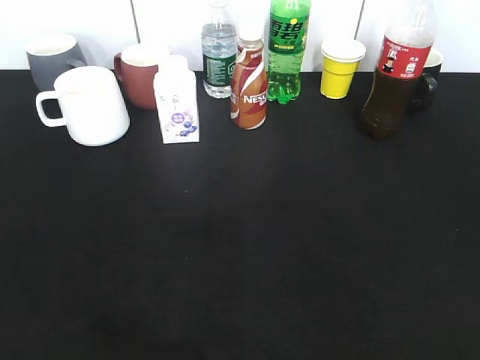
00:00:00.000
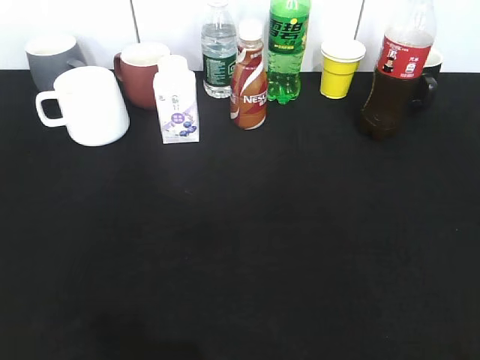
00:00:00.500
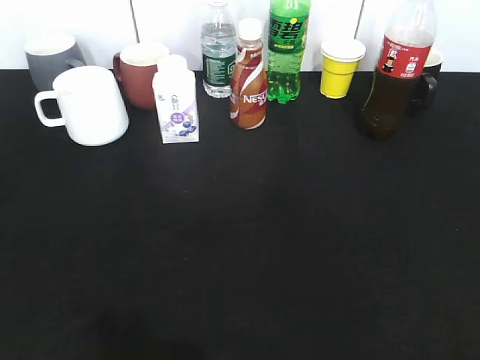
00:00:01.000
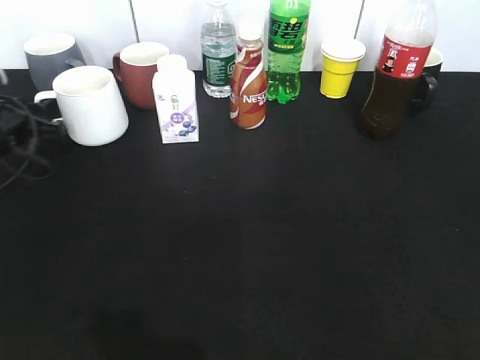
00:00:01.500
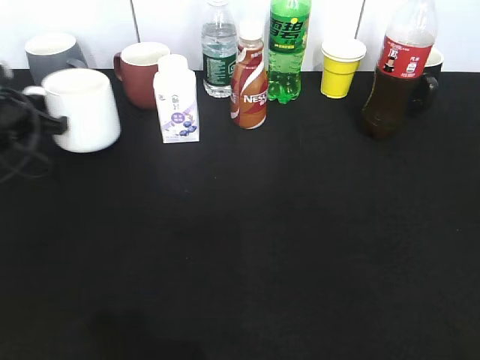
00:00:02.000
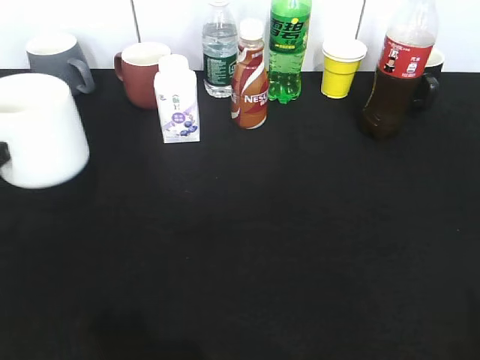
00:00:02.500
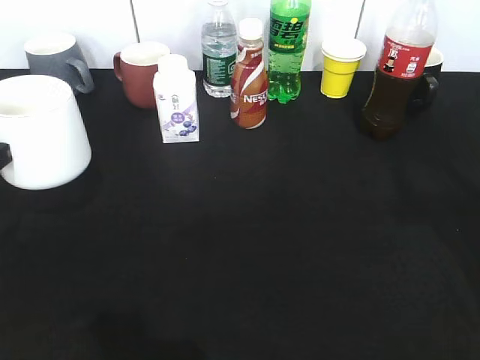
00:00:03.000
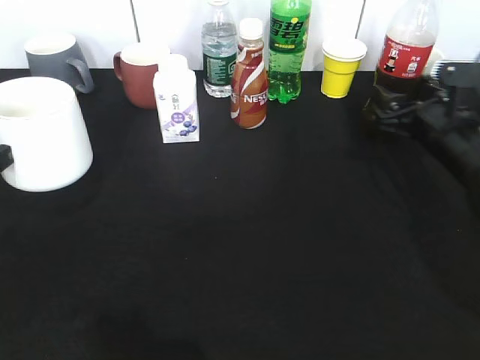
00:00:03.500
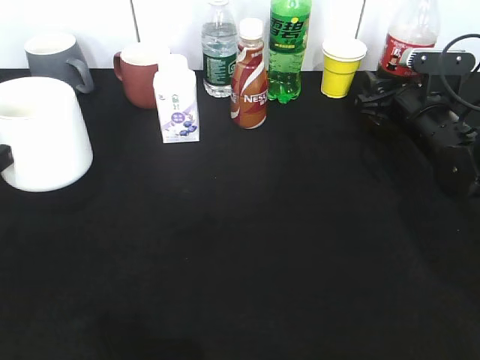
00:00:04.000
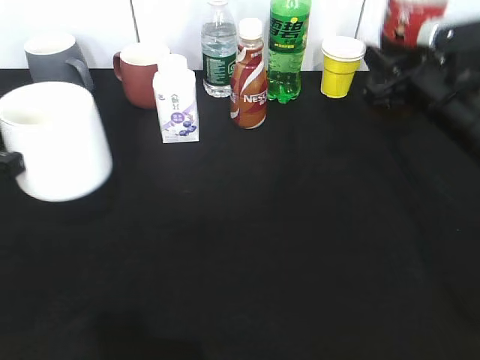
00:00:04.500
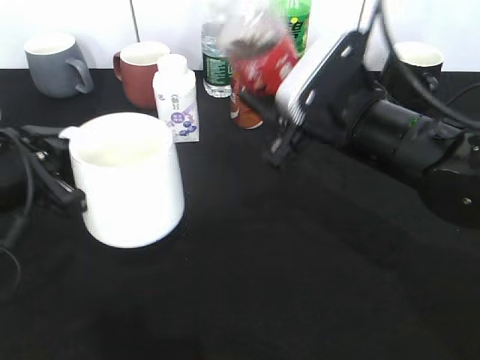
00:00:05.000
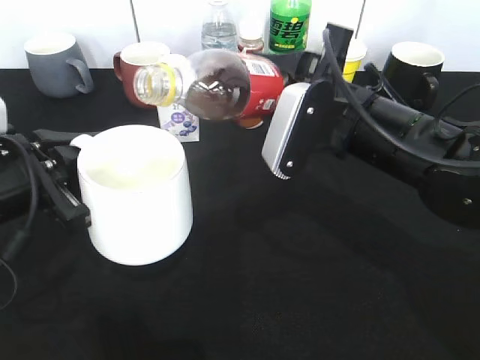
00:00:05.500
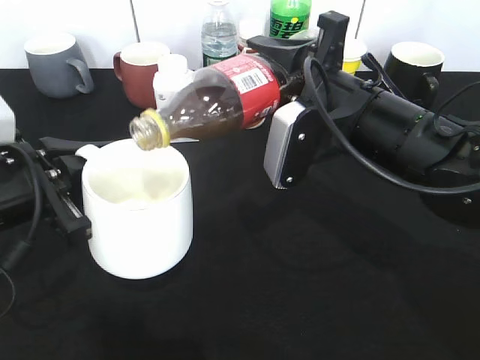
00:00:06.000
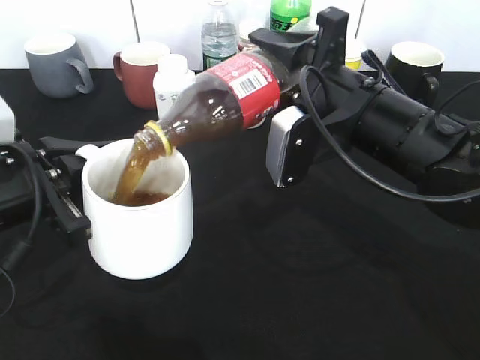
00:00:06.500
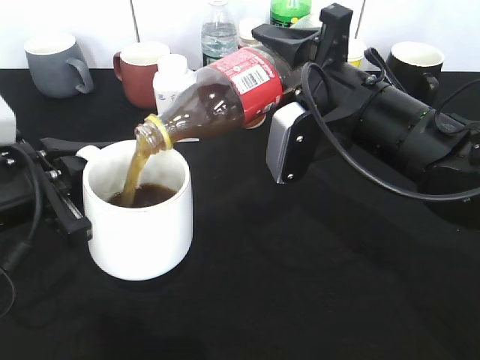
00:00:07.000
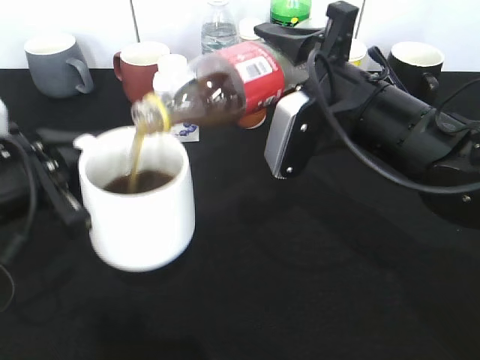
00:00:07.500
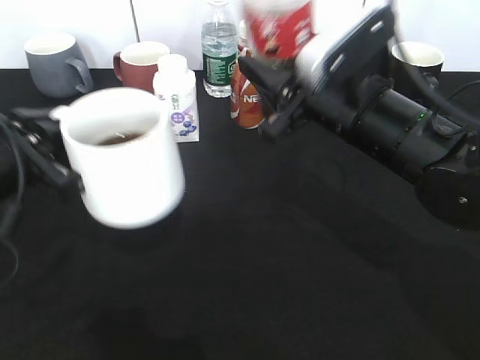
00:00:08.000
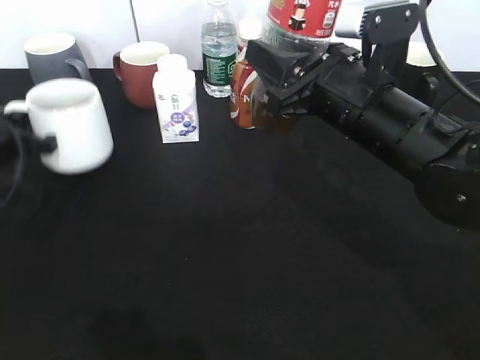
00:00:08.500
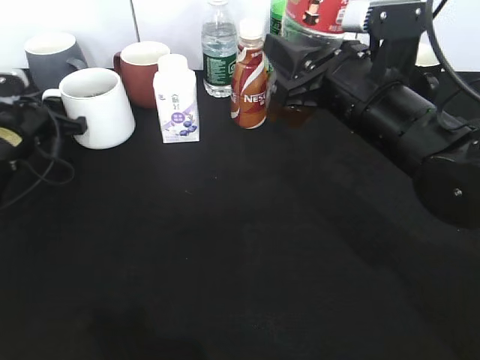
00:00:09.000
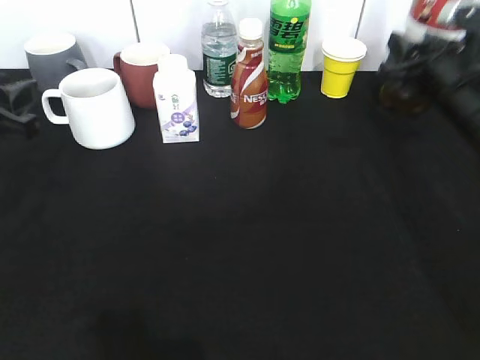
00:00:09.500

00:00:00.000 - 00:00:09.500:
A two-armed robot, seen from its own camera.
Step, 00:00:00.000 - 00:00:01.500: Grasp the white cup with left gripper.
Step, 00:00:02.000 - 00:00:02.500: Lift the white cup with left gripper.
Step, 00:00:03.000 - 00:00:04.000: Grasp the bottle with cola with right gripper.
Step, 00:00:04.500 - 00:00:07.500: Pour the cola from bottle to cup with right gripper.
Step, 00:00:08.000 - 00:00:09.000: Place the white cup on the table with left gripper.
00:00:00.000 - 00:00:02.000: The left gripper goes approximately 35 cm forward, and closes.
00:00:02.000 - 00:00:04.000: The right gripper goes about 40 cm forward and downward, while the left gripper heads backward and upward, covering about 15 cm.
00:00:04.000 - 00:00:05.500: The left gripper goes approximately 10 cm to the right; the right gripper goes about 20 cm to the left, backward and upward.
00:00:07.500 - 00:00:09.500: The right gripper travels to the right and forward by some 15 cm. Meanwhile the left gripper is displaced to the left by some 5 cm, reaches roughly 15 cm forward, then returns, and opens.

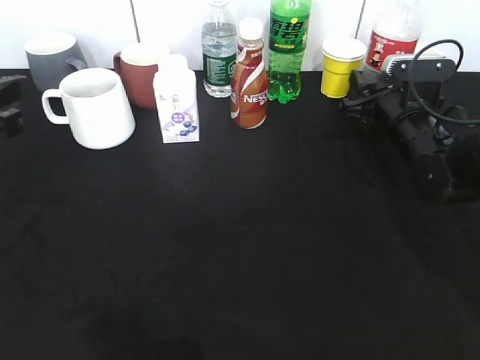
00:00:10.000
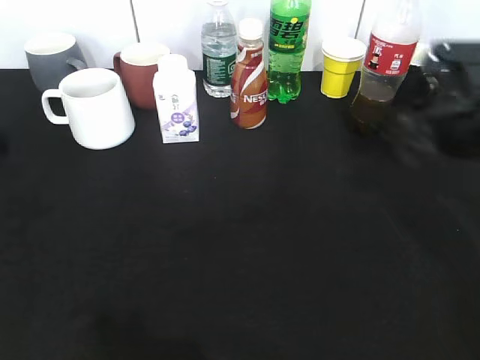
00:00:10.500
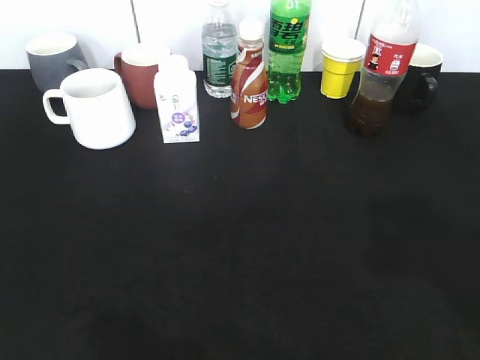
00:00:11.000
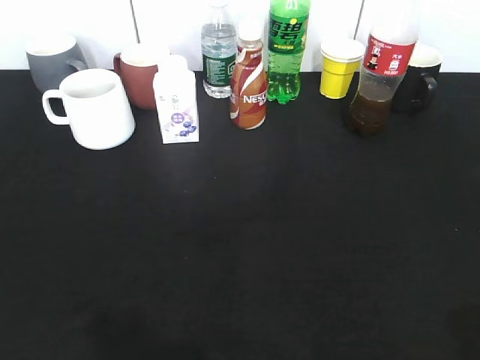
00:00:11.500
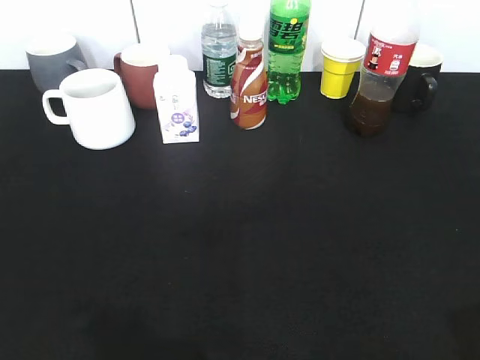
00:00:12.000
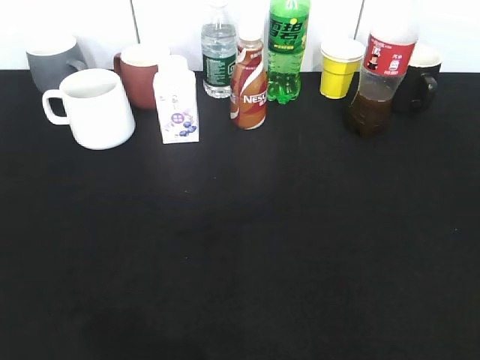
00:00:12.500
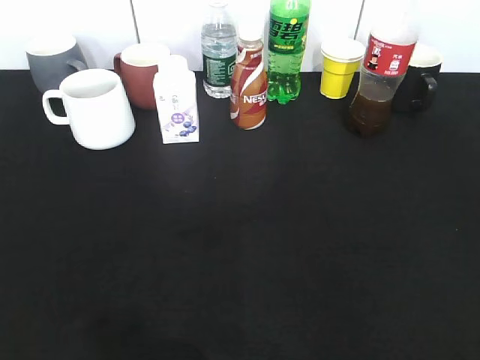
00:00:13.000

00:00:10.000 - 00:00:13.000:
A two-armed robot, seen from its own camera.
Step, 00:00:10.000 - 00:00:10.500: Place the cola bottle on the table with right gripper.
00:00:10.000 - 00:00:11.500: The right gripper goes some 40 cm backward and upward. The left gripper moves backward, roughly 25 cm, and opens up.

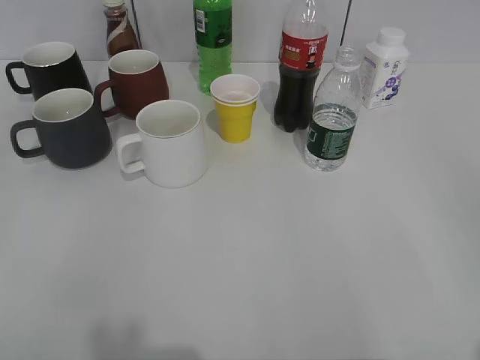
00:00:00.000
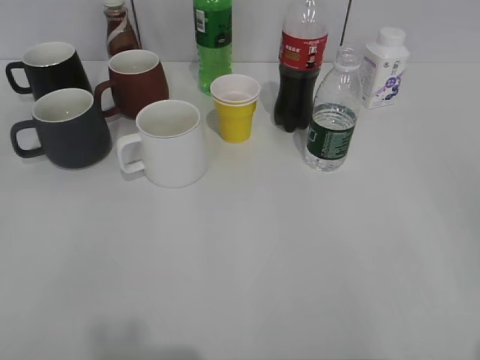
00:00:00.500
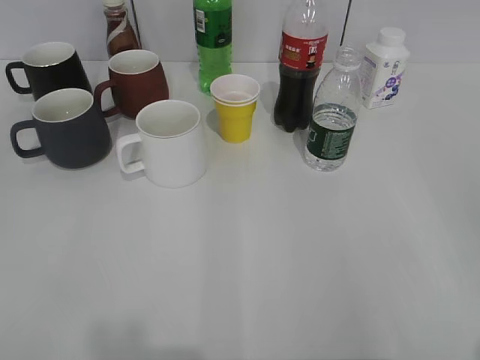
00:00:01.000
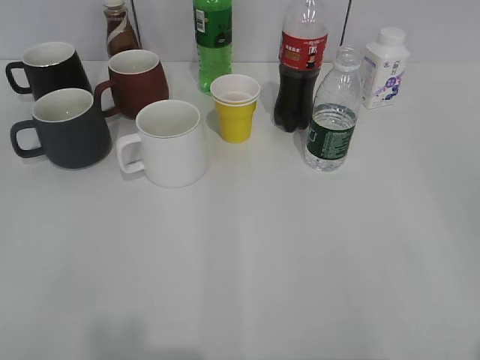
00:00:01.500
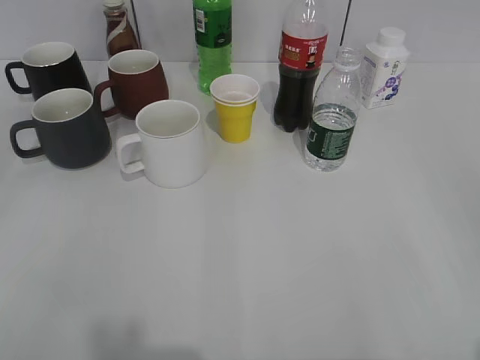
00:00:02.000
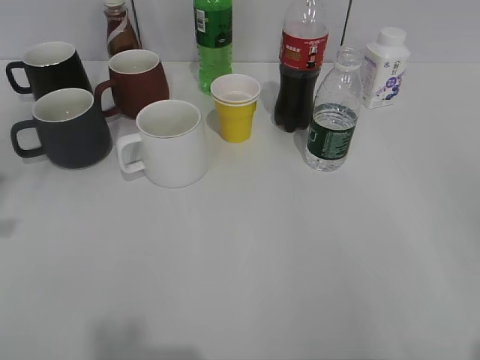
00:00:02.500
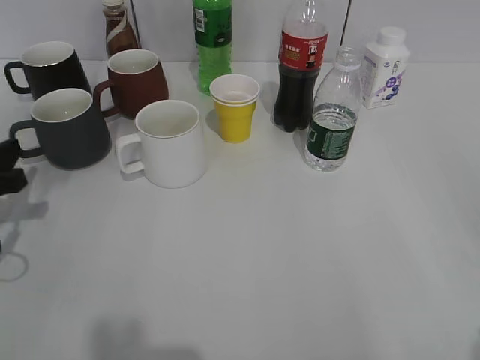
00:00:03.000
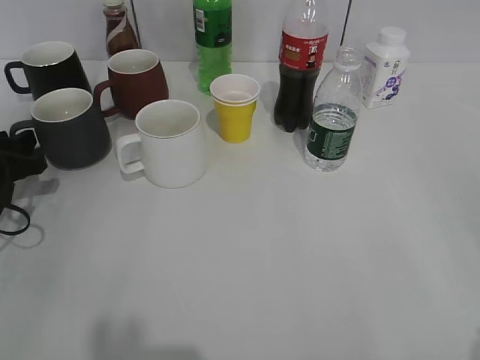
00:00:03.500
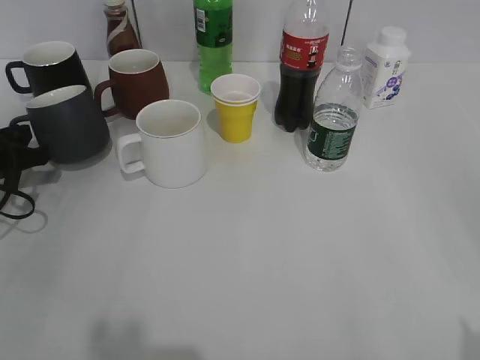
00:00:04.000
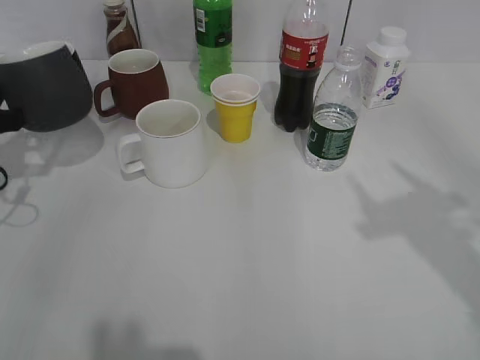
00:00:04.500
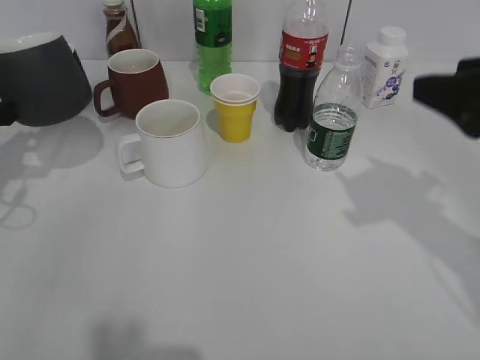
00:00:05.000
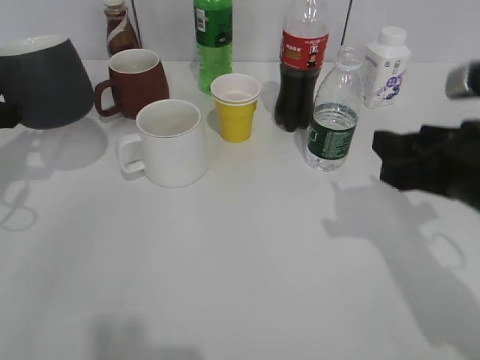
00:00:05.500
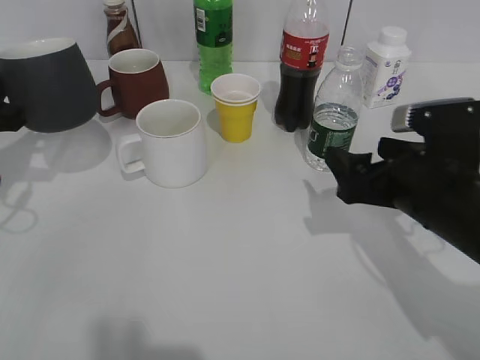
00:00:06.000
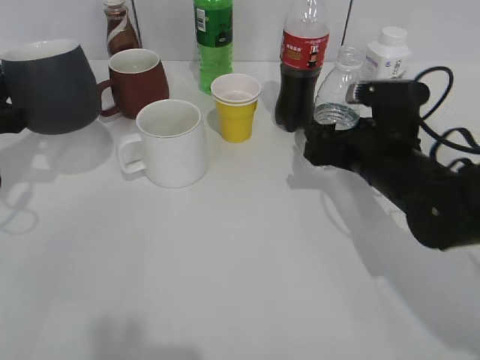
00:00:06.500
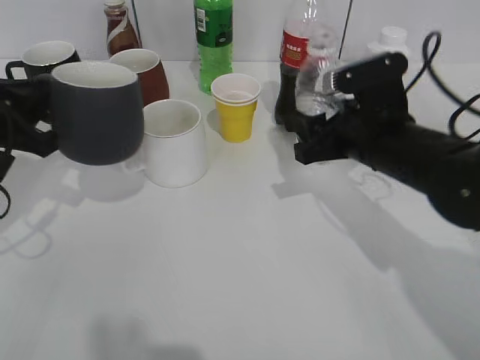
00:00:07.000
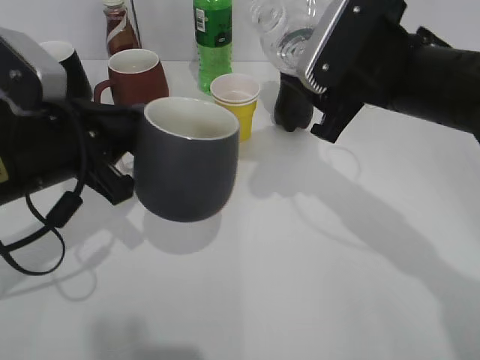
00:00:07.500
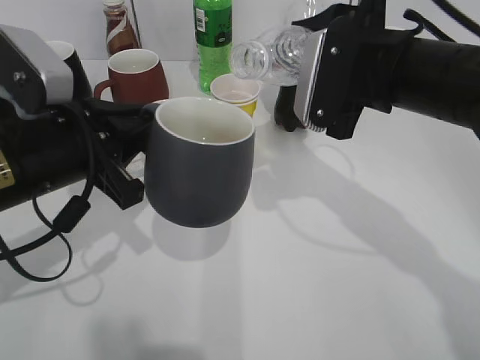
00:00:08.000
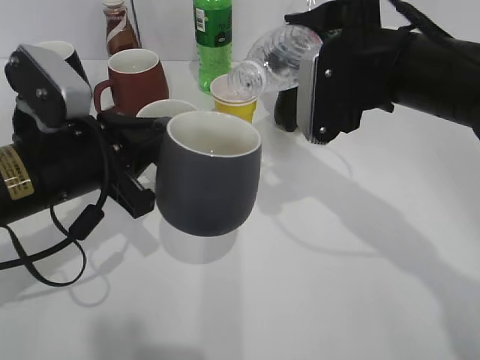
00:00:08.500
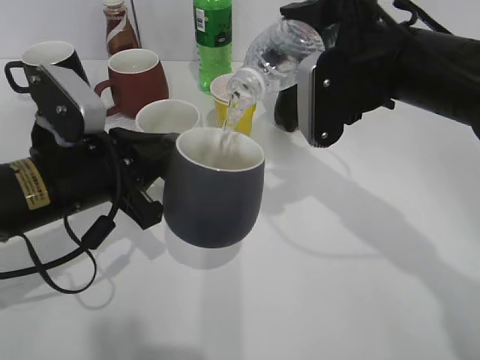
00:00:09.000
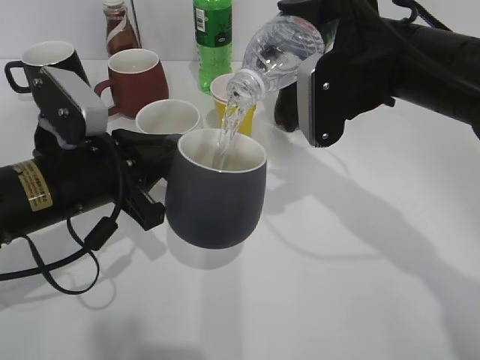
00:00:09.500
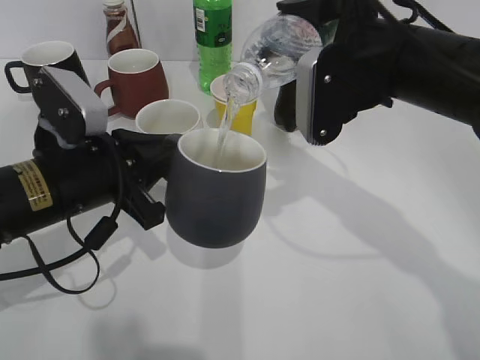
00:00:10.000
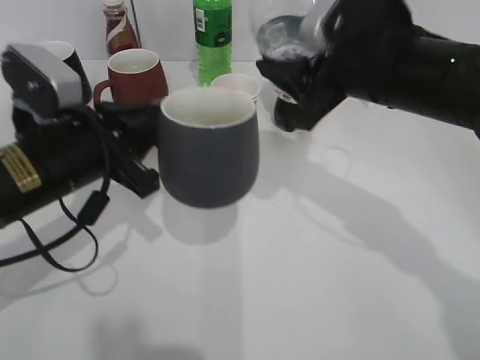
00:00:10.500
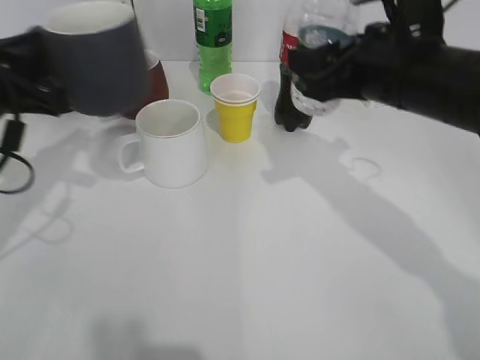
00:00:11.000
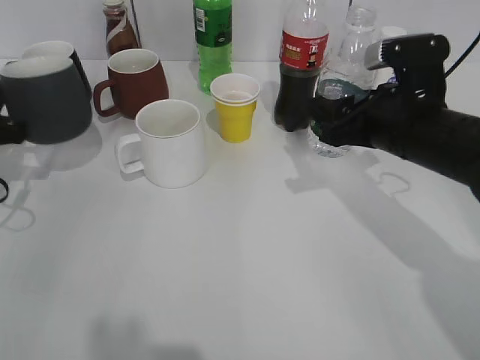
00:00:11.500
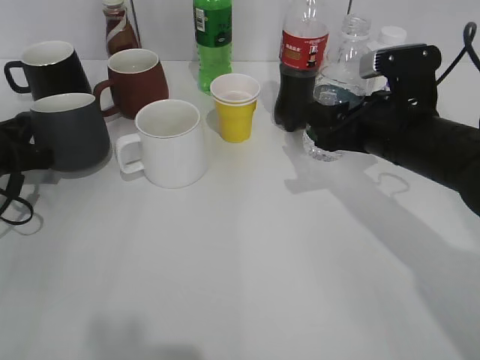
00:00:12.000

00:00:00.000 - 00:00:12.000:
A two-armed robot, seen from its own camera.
Step, 00:00:02.000 - 00:00:03.500: Grasp the black cup with left gripper.
Step, 00:00:04.000 - 00:00:04.500: Lift the black cup with left gripper.
Step, 00:00:05.000 - 00:00:06.500: Grasp the bottle with water with right gripper.
Step, 00:00:07.000 - 00:00:10.500: Pour the water from bottle to cup with right gripper.
00:00:02.000 - 00:00:04.000: The left gripper moves forward and downward, some 35 cm.
00:00:04.000 - 00:00:06.000: The right gripper travels forward, downward and to the left by about 30 cm, and closes, then opens again. The left gripper heads upward, covering roughly 10 cm.
00:00:06.000 - 00:00:08.000: The right gripper heads upward, forward and to the left, covering about 10 cm, and closes up; the left gripper goes roughly 15 cm to the right and backward.
00:00:10.000 - 00:00:12.000: The right gripper heads downward, covering some 10 cm, while the left gripper travels to the left, forward and downward by some 20 cm.
